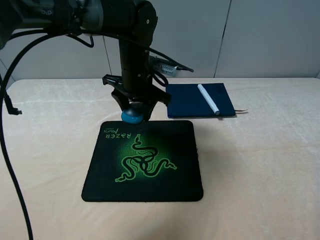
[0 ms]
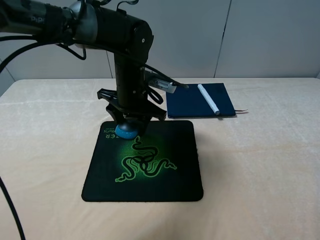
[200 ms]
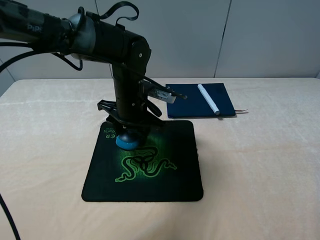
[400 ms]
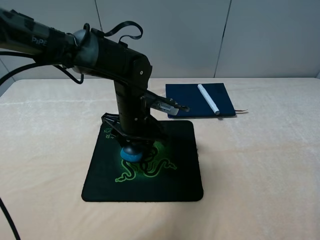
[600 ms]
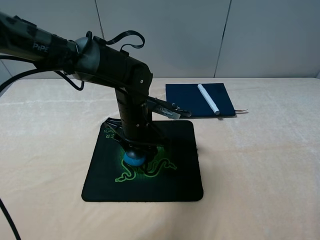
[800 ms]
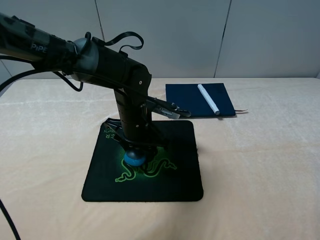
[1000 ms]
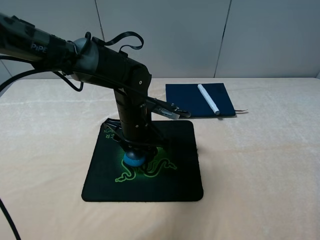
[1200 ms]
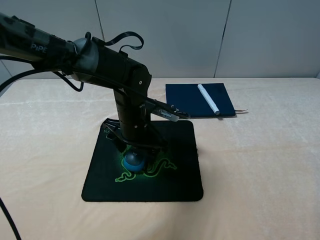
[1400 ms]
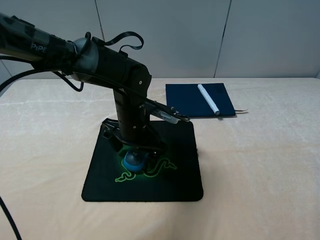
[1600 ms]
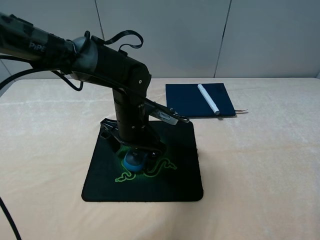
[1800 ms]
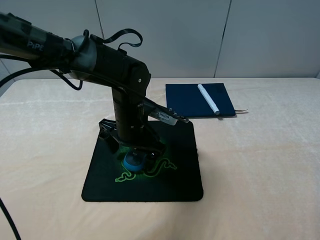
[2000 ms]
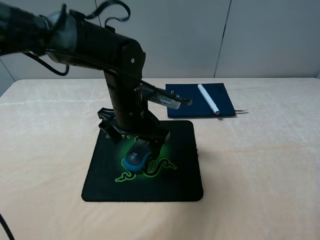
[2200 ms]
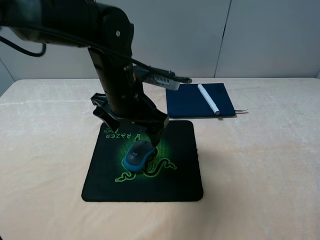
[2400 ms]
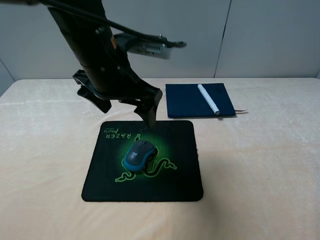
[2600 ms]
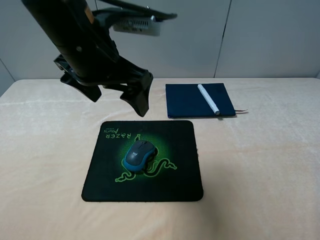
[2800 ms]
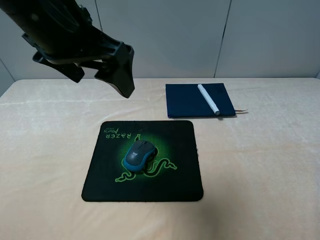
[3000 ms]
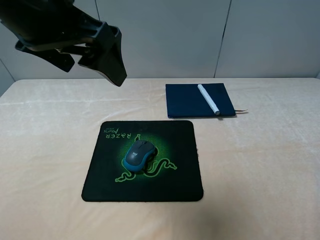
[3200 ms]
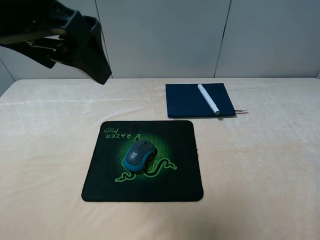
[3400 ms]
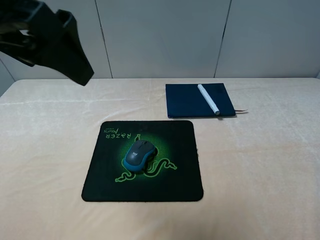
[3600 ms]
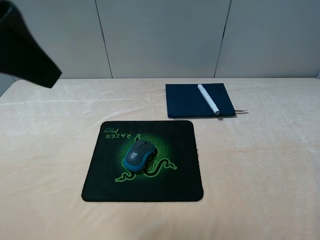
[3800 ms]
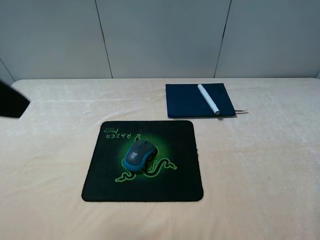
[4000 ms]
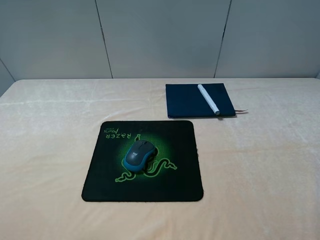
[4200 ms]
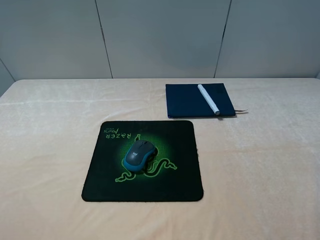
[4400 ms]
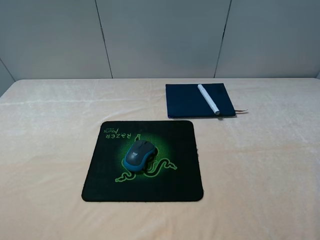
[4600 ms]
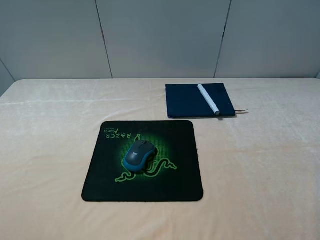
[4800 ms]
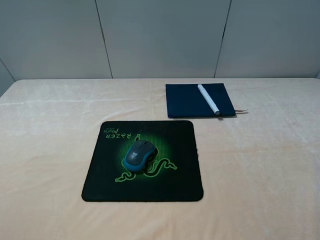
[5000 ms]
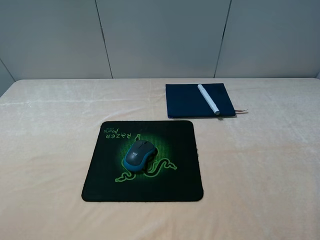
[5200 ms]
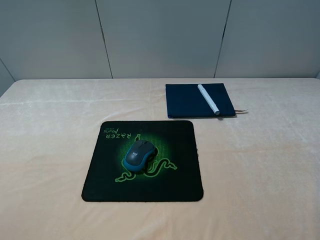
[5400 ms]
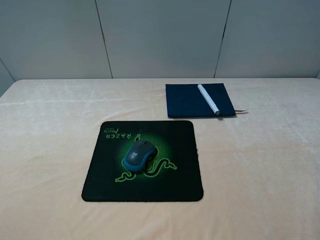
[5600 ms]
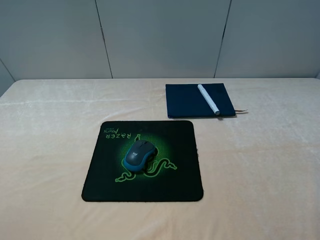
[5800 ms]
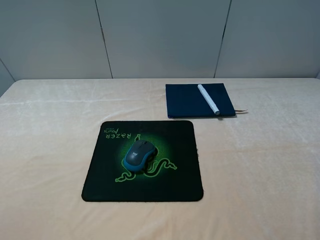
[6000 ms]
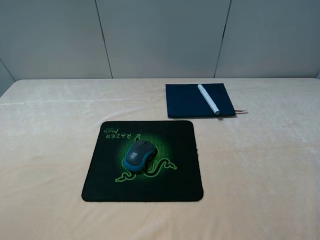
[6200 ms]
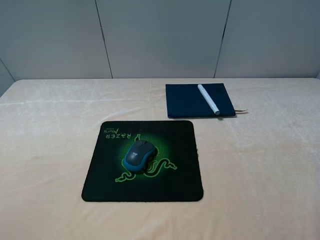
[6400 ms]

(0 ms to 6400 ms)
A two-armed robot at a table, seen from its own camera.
Step, 0 ms - 2200 ms: Place the mouse on the mouse pad with the left gripper.
0 ms - 1600 ms: The left gripper shifts about 10 cm downward and backward, and opens its fingers.
1600 ms - 3200 ms: The left gripper goes some 25 cm upward.
3200 ms - 4800 ms: The left gripper moves to the left, backward and downward, approximately 25 cm.
